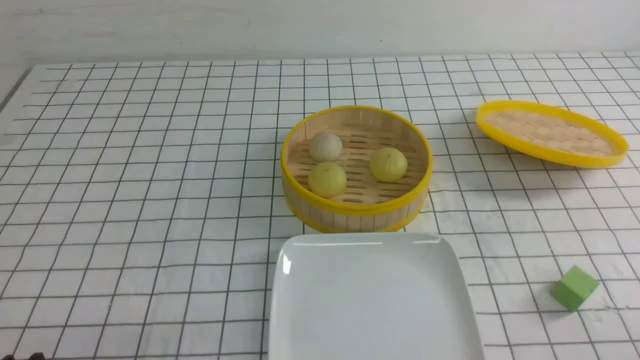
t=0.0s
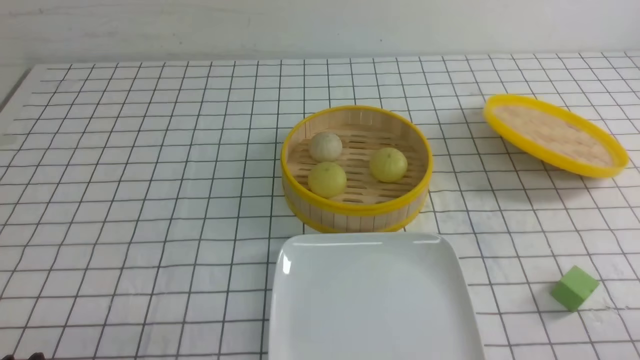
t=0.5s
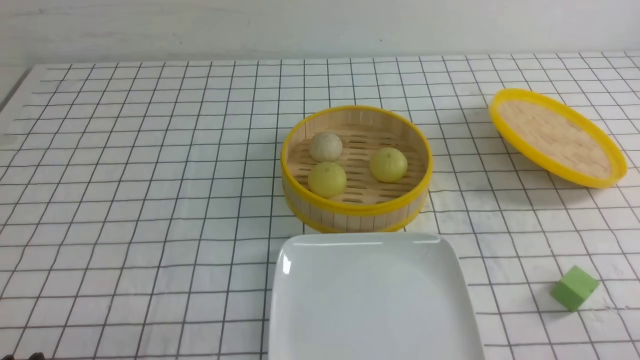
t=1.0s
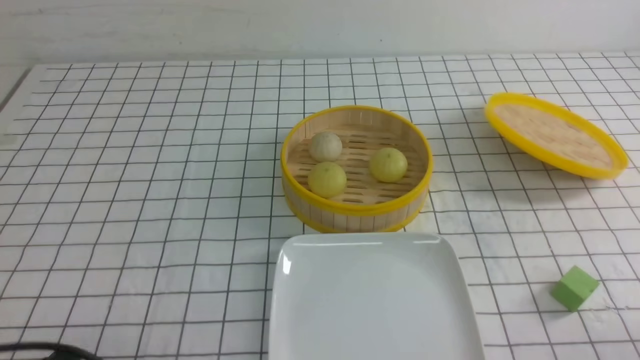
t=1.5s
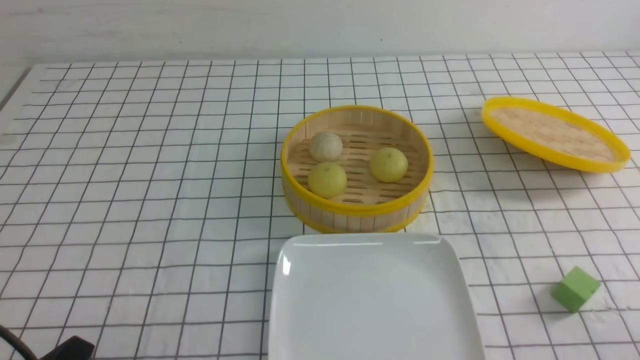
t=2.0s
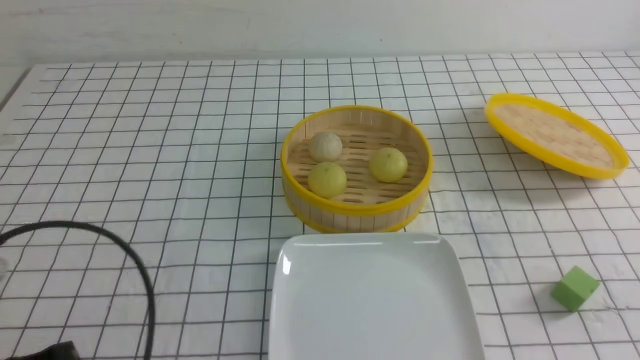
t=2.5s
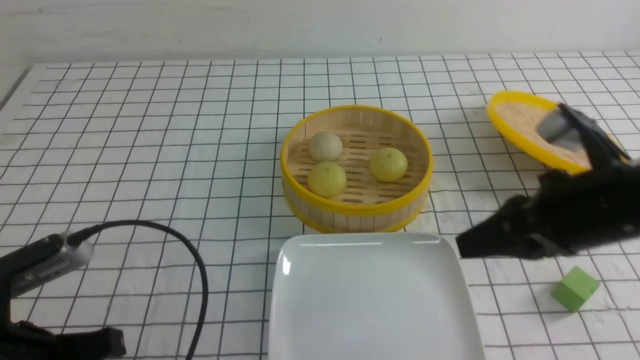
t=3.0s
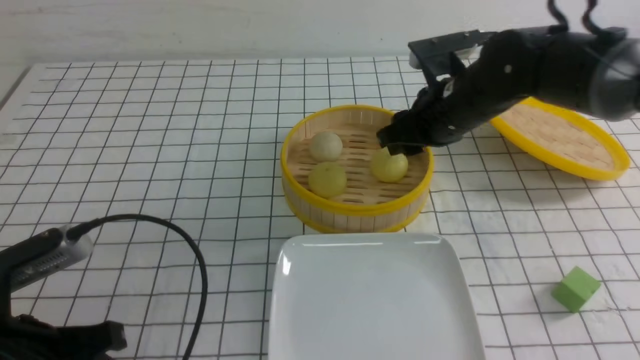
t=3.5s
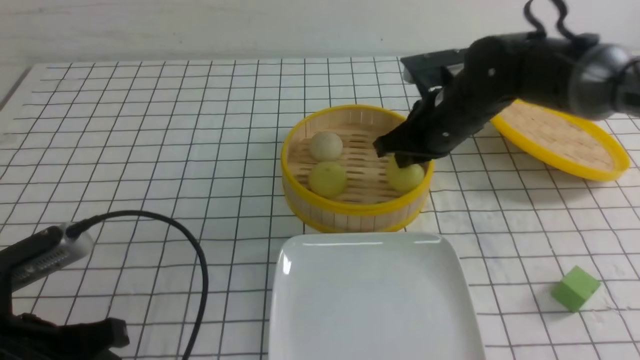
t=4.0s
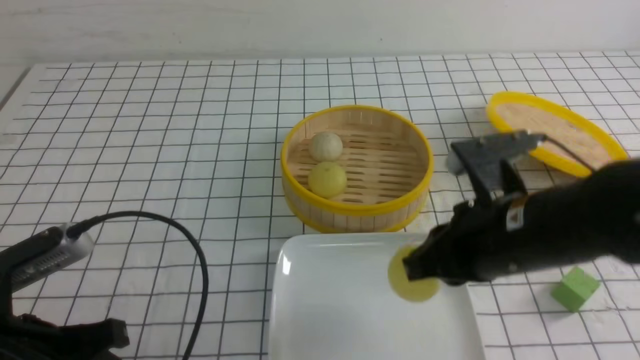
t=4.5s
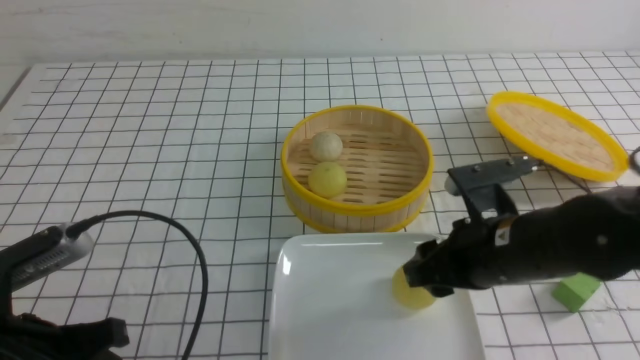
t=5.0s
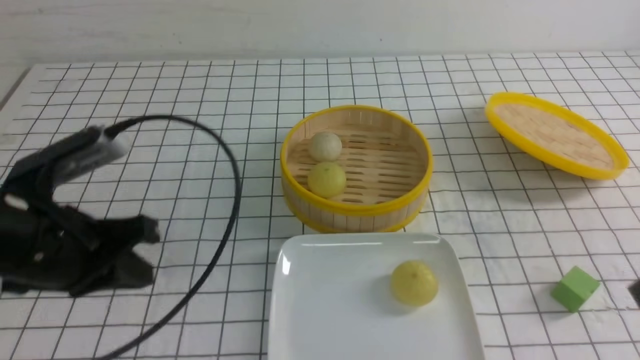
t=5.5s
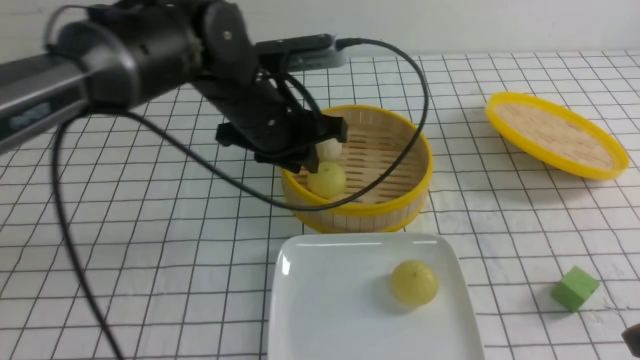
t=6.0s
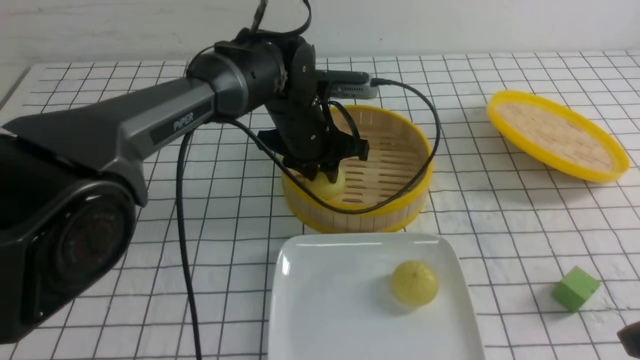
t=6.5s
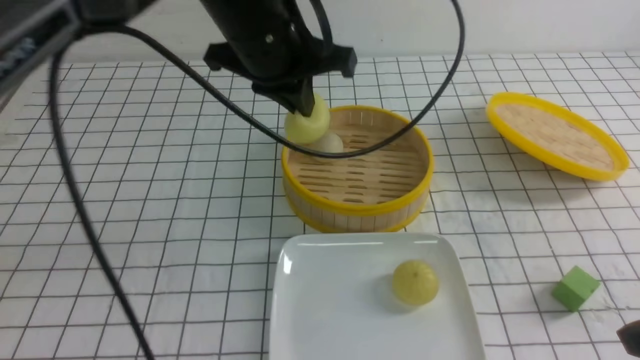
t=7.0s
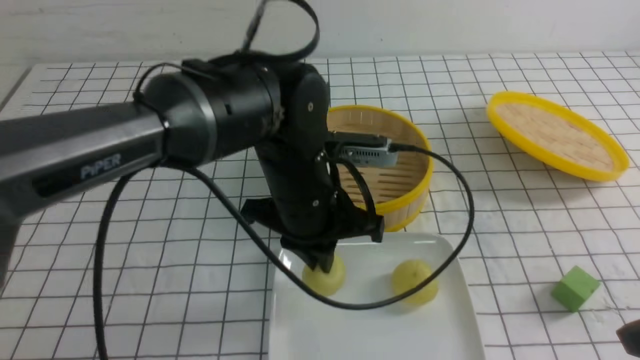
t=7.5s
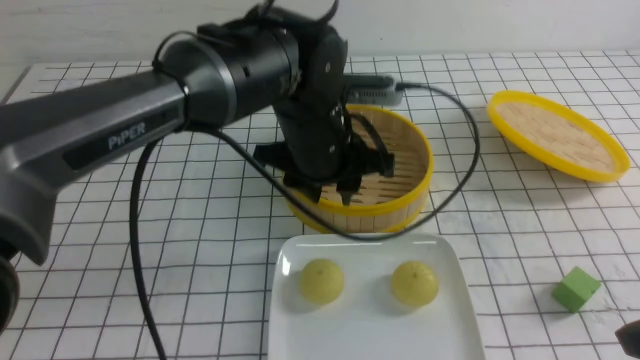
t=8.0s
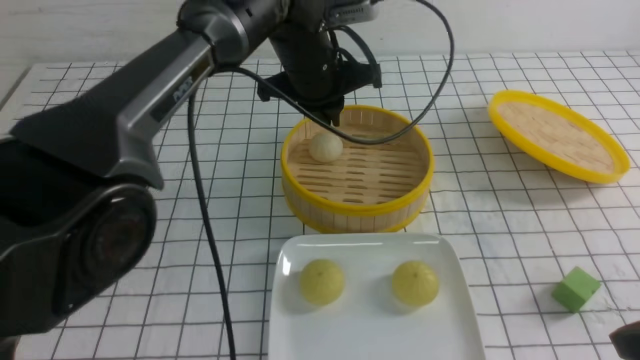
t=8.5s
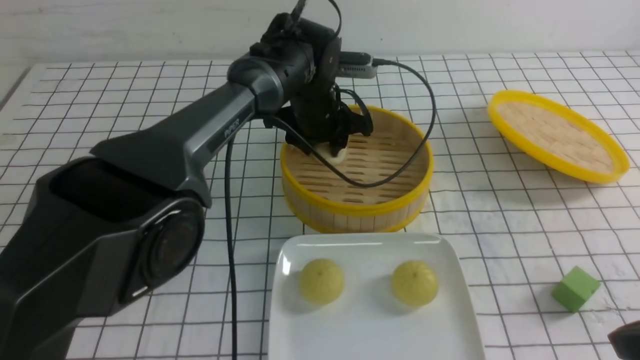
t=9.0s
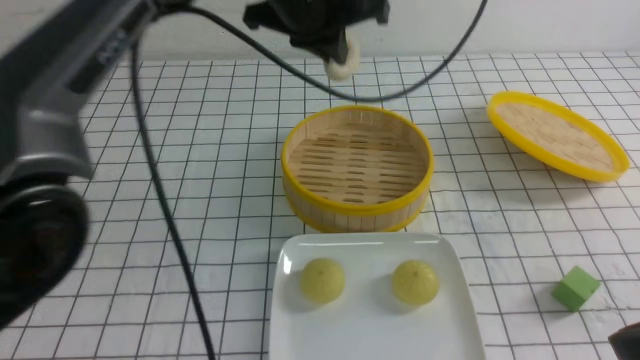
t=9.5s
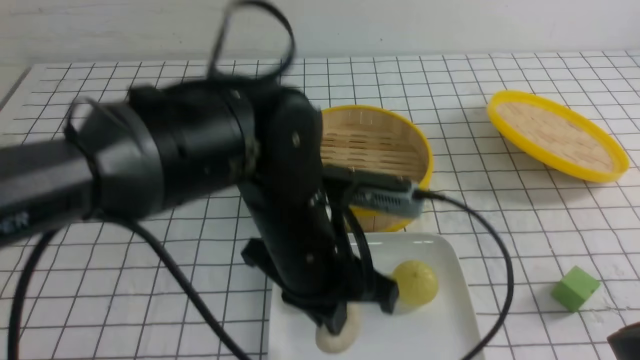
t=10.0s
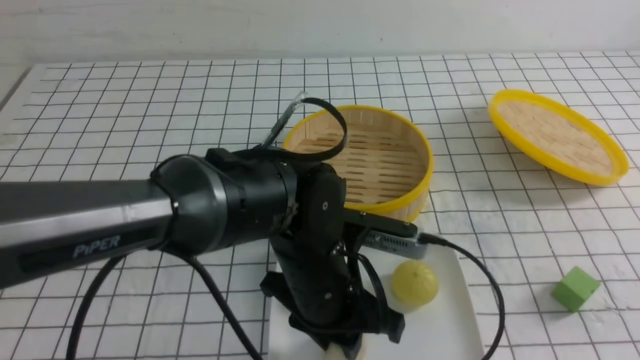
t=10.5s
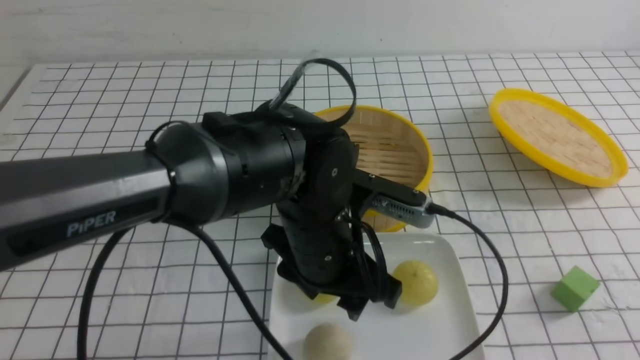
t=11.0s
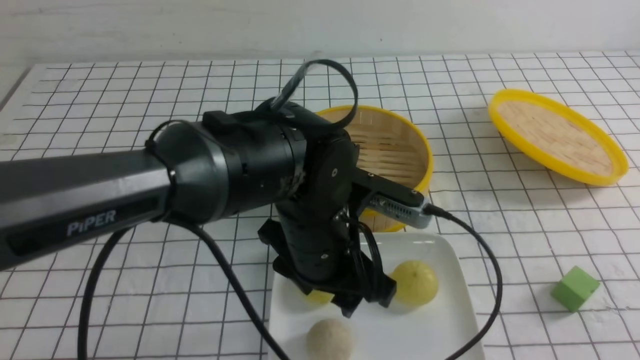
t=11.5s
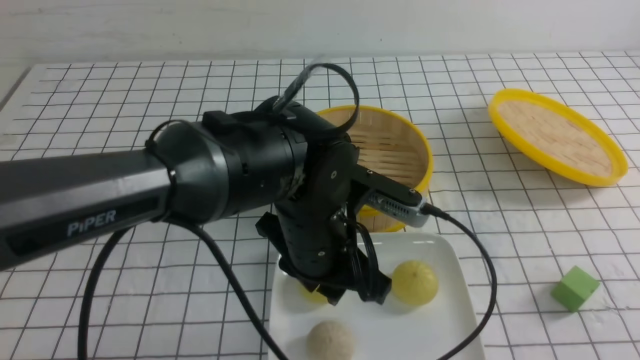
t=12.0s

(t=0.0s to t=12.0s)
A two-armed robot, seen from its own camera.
Step, t=0.0s - t=3.5s: use the right arm to grab the steamed stuffed bun that is closest to it.
Step, t=4.5s - t=5.0s: use the right arm to put the steamed stuffed bun into the plate.
Step, t=5.5s - t=6.5s: use the left arm to grab the steamed stuffed bun that is closest to it.
Step, t=7.0s - t=7.5s: use the left arm to put the steamed stuffed bun into the plate.
Step, t=8.0s - t=9.0s: use the left arm to grab the steamed stuffed bun that is closest to it.
Step, t=9.5s - t=10.5s: use the left arm to put the steamed stuffed bun into the plate.
t=2.0s - t=4.0s: The right gripper moves forward and to the left, some 35 cm, and closes its fingers; the left gripper travels forward by roughly 10 cm.
t=4.0s - t=6.0s: The left gripper heads forward and to the right, covering some 30 cm, and closes, then reopens, while the right gripper goes some 30 cm backward and to the right, and opens and closes again.
t=6.0s - t=8.0s: The left gripper moves forward and backward over approximately 10 cm, changing direction 2 times, and closes and opens again.
t=8.0s - t=10.0s: The left gripper shifts about 10 cm backward, and closes.
t=10.0s - t=12.0s: The left gripper opens its fingers. The right gripper moves backward, about 5 cm, and closes.

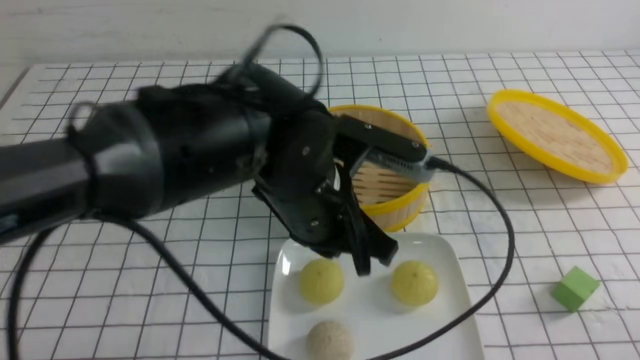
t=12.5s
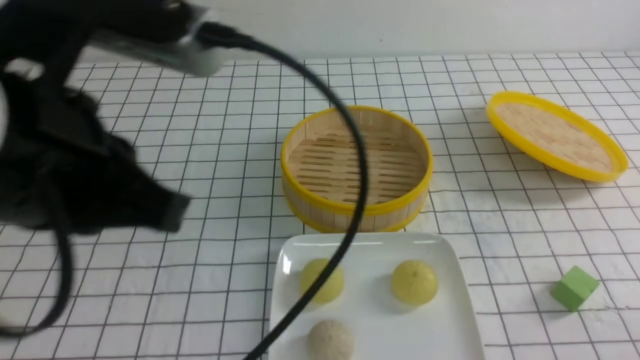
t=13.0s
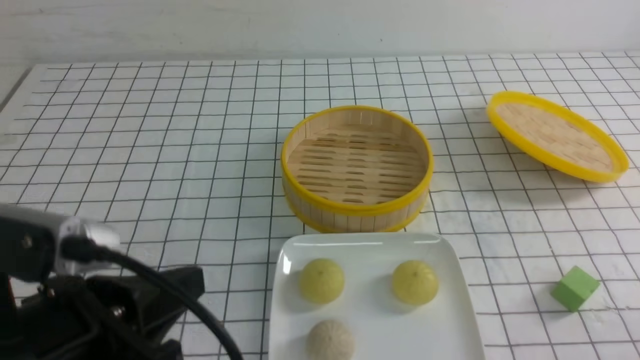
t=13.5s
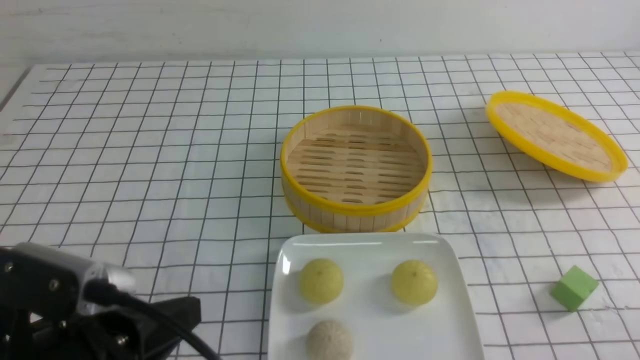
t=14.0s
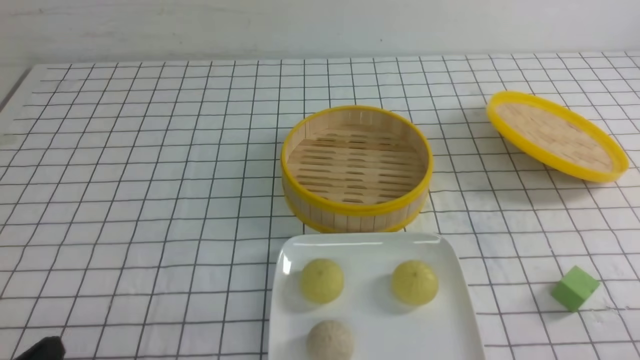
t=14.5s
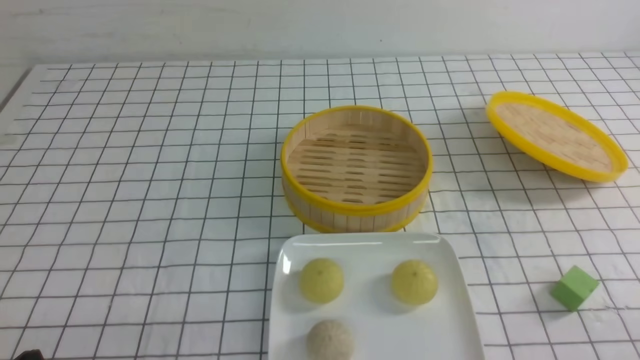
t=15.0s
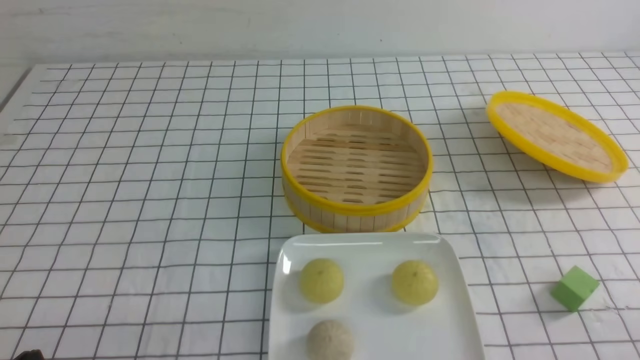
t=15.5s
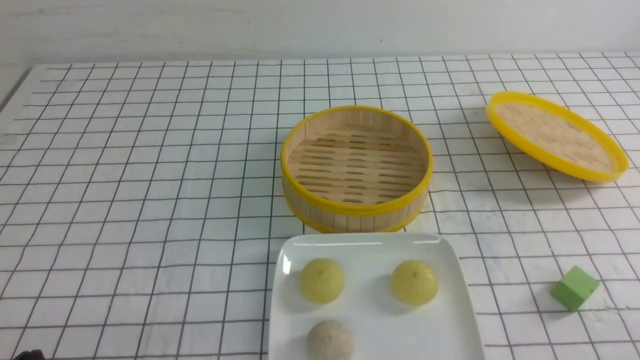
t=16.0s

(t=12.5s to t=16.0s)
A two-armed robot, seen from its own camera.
t=12.5s - t=14.5s: The left gripper goes roughly 30 cm to the left, backward and downward.
